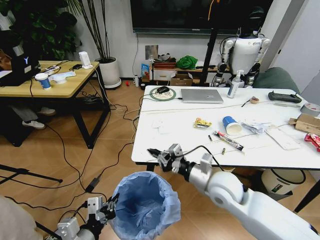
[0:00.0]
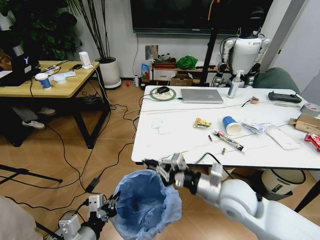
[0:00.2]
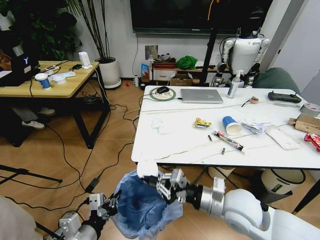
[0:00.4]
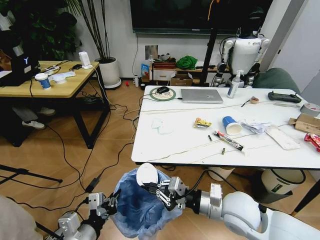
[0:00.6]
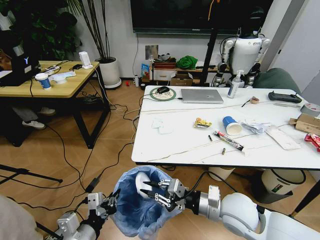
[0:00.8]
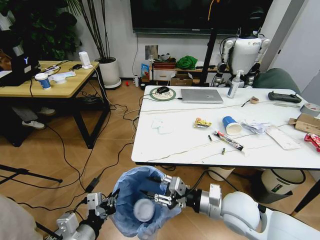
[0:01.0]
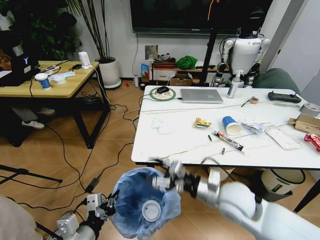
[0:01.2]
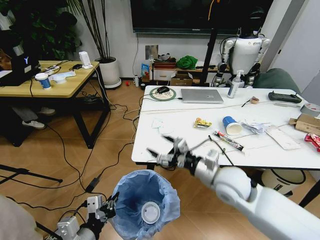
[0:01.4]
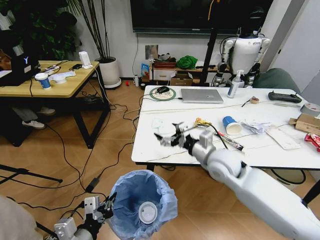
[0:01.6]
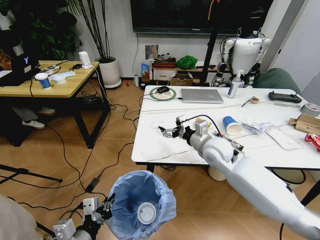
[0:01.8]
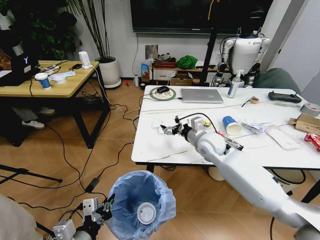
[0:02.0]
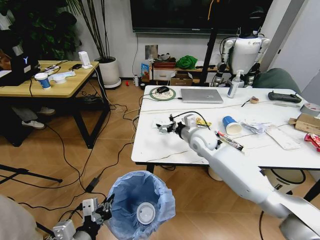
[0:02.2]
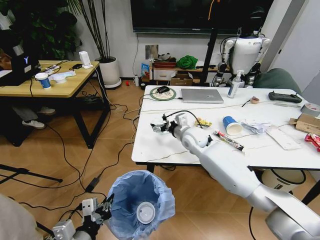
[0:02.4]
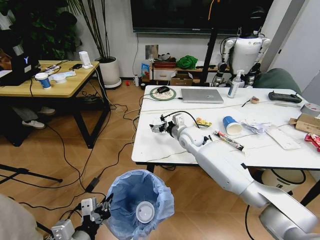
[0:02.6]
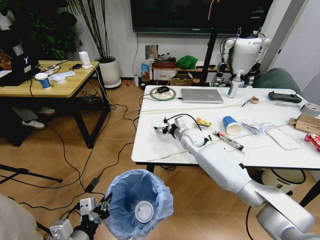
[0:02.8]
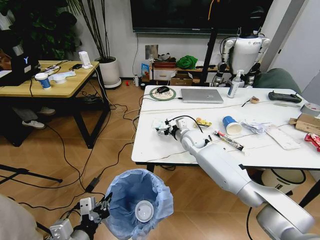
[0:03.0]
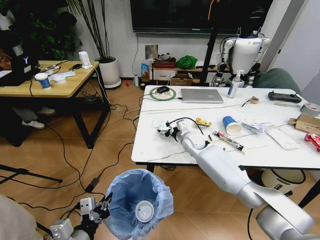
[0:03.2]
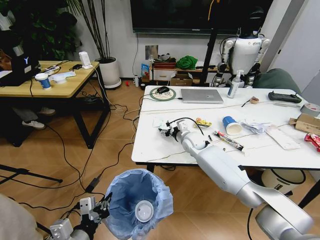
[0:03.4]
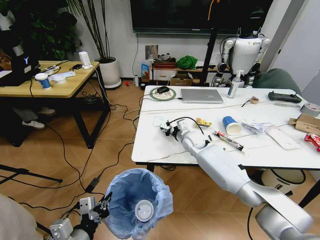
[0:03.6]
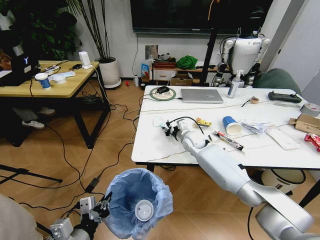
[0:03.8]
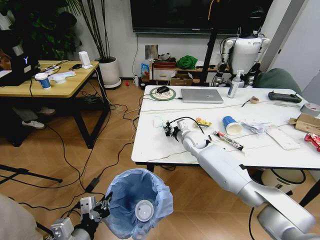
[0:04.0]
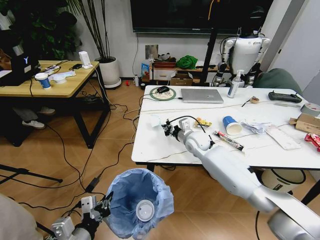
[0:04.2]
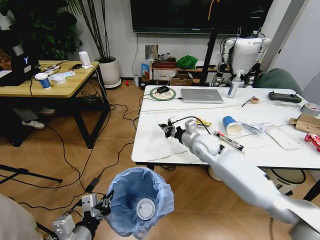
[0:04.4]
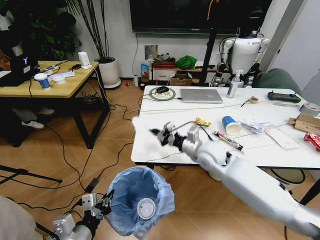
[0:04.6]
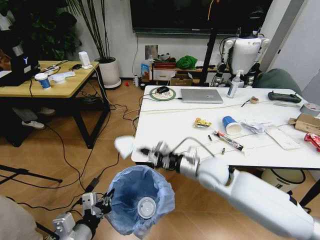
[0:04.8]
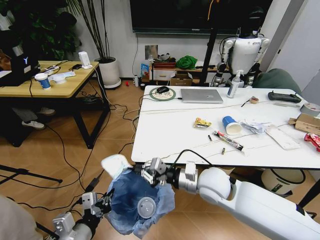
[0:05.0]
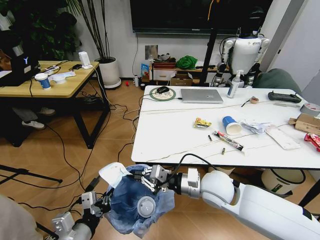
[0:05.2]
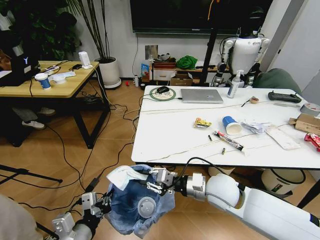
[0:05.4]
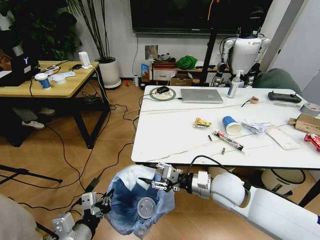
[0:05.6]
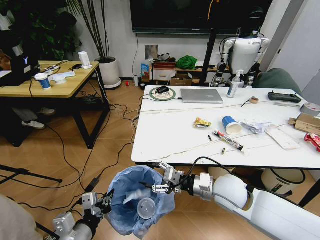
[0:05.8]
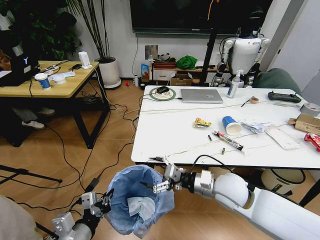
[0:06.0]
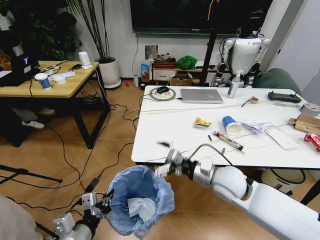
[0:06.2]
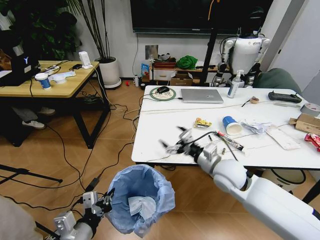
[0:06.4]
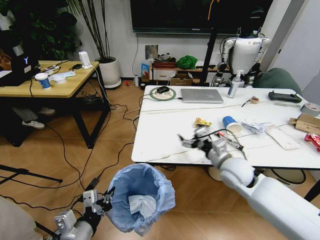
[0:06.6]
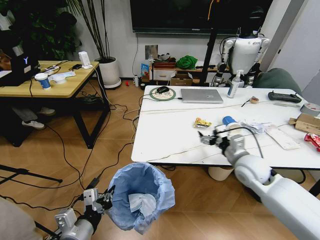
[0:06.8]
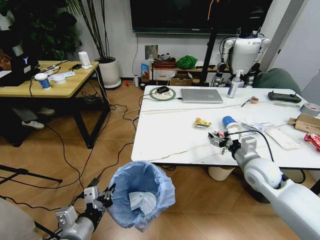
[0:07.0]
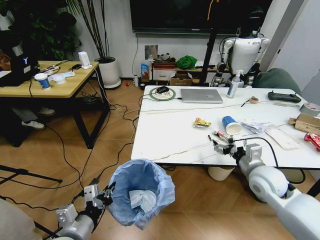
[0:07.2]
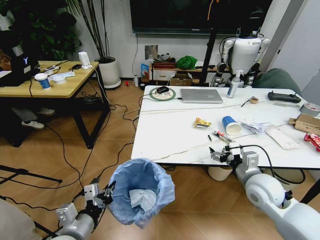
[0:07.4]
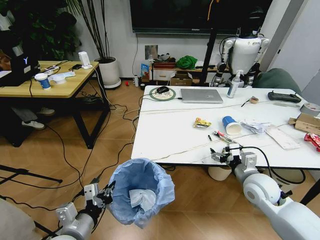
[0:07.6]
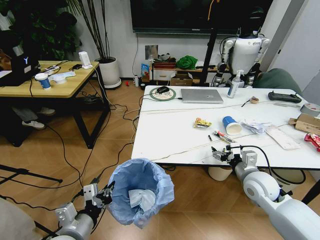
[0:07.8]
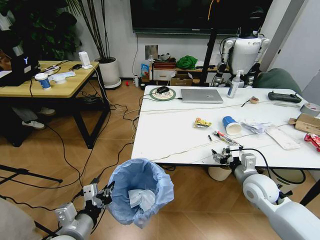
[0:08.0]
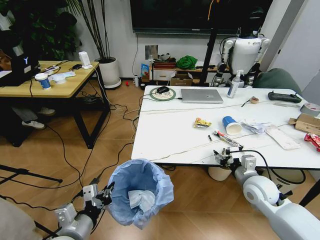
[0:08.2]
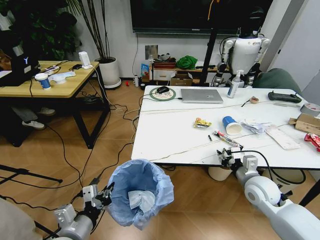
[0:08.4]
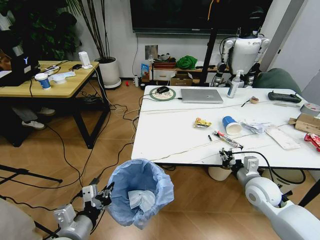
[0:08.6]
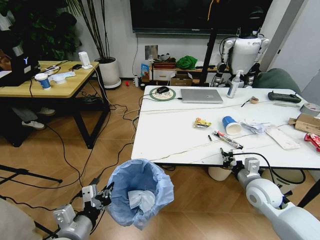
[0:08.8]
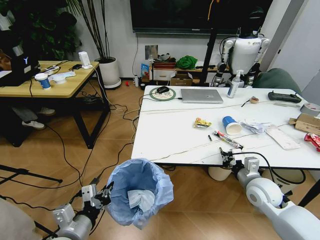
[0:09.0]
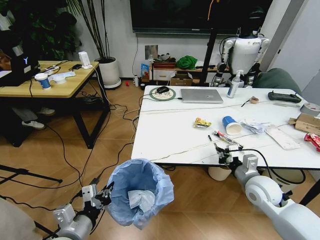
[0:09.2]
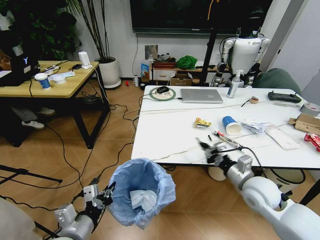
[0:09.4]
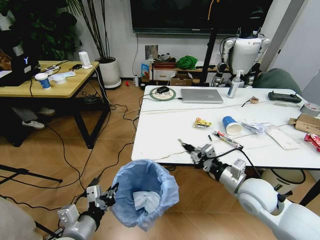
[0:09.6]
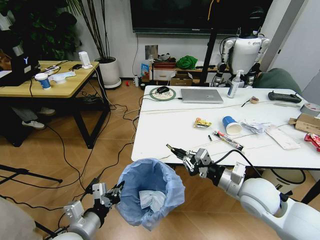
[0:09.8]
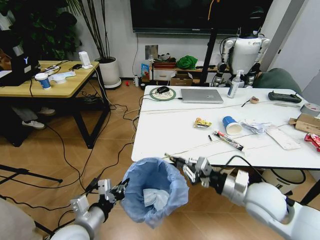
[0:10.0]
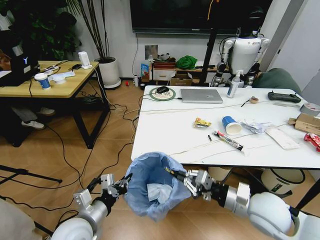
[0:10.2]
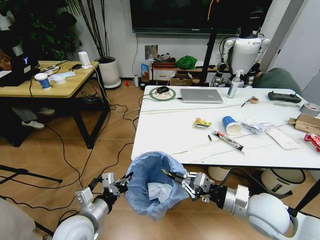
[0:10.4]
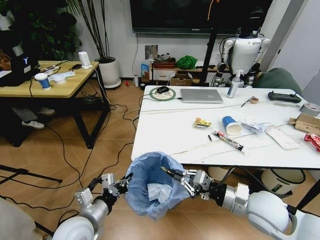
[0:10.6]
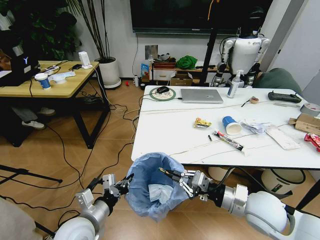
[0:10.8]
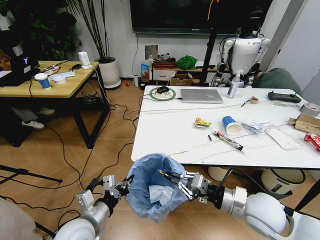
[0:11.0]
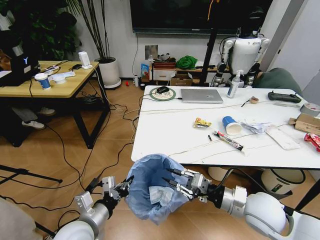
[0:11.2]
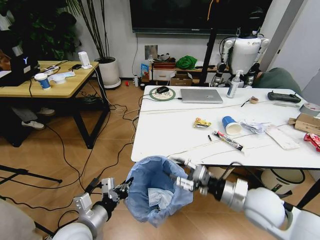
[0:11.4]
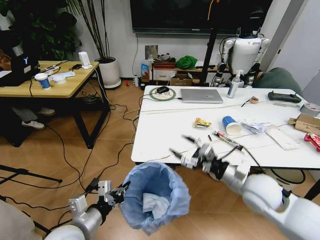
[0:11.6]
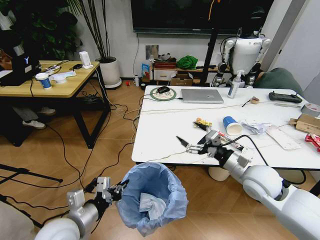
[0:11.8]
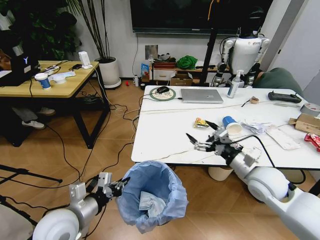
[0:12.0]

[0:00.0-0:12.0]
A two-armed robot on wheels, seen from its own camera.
Task of the whole recording: Pick up the trash bin and place the trash from the table into it.
0:00.0 to 0:01.6: The right gripper travels forward by about 5 cm, and opens its fingers.
0:01.6 to 0:03.0: The right gripper shifts some 20 cm forward and downward.
0:03.0 to 0:04.4: The right gripper ends up some 5 cm from where it was, and closes.
0:04.4 to 0:06.0: The right gripper moves backward, some 20 cm, and opens its fingers.
0:06.0 to 0:07.6: The right gripper is displaced to the right by some 10 cm.
0:07.6 to 0:09.0: The right gripper closes.
0:09.0 to 0:10.4: The left gripper moves forward, about 5 cm, while the right gripper travels backward, to the left and upward by some 10 cm.
0:10.4 to 0:12.0: The right gripper travels forward by approximately 10 cm, and opens its fingers.

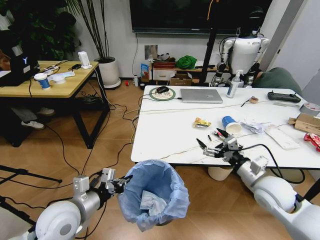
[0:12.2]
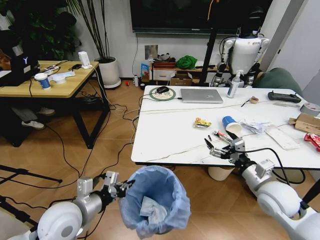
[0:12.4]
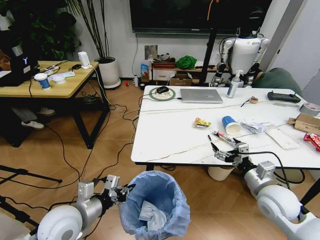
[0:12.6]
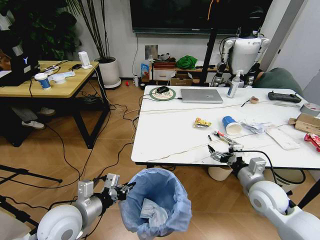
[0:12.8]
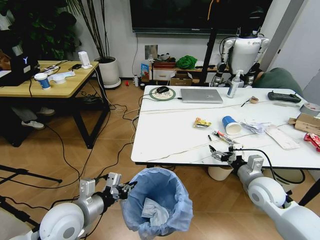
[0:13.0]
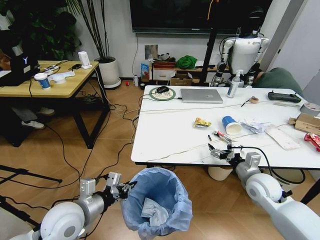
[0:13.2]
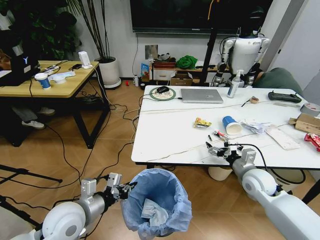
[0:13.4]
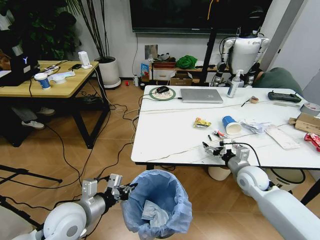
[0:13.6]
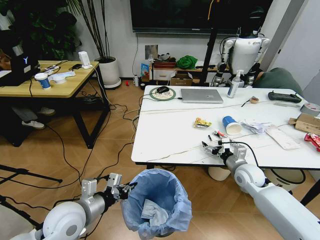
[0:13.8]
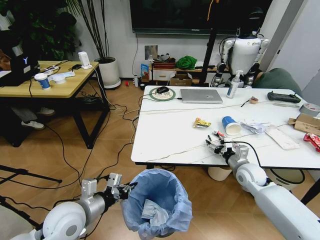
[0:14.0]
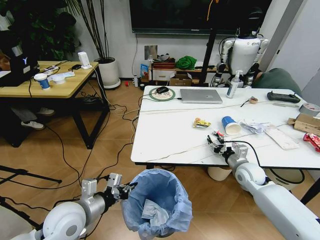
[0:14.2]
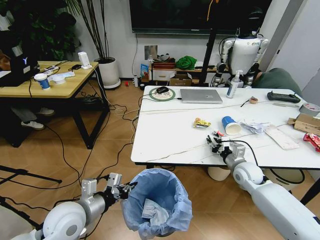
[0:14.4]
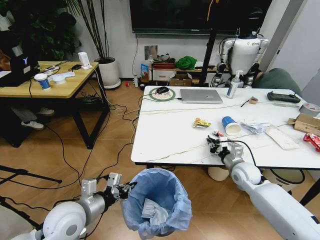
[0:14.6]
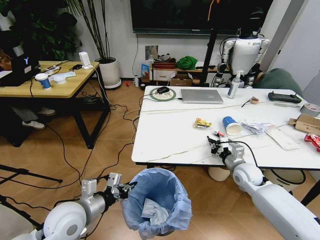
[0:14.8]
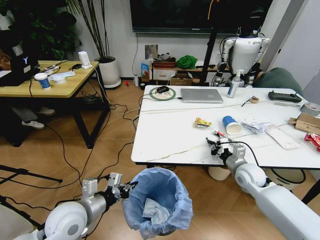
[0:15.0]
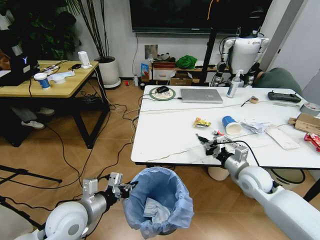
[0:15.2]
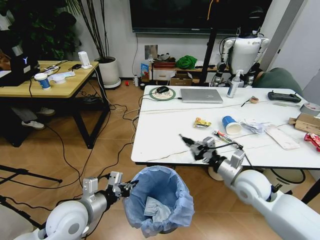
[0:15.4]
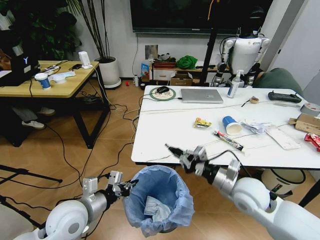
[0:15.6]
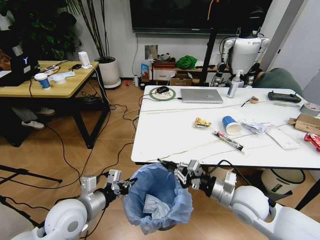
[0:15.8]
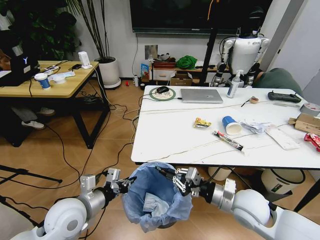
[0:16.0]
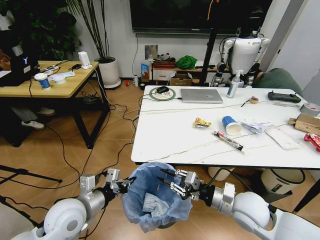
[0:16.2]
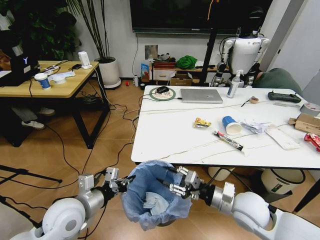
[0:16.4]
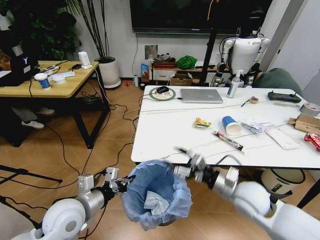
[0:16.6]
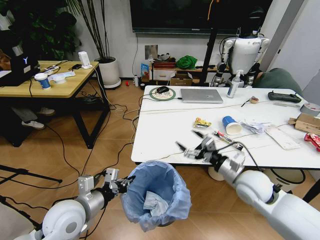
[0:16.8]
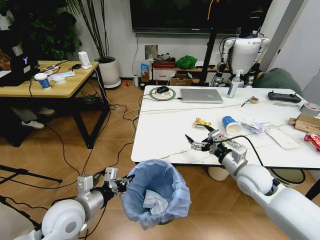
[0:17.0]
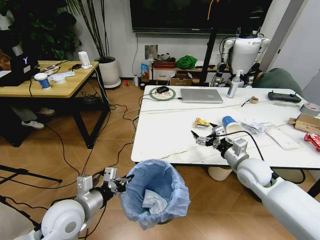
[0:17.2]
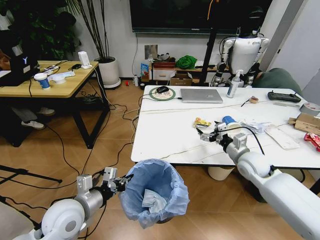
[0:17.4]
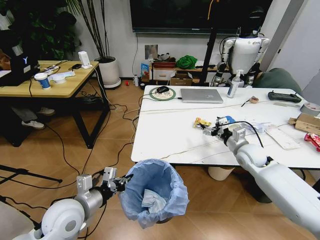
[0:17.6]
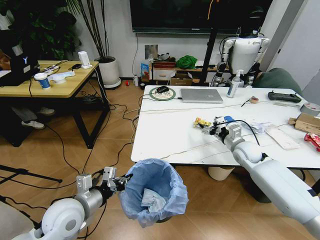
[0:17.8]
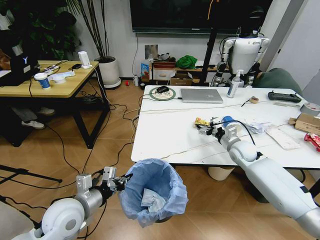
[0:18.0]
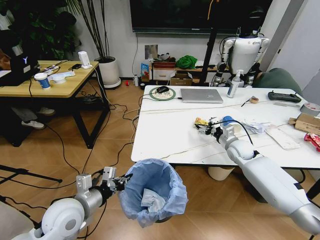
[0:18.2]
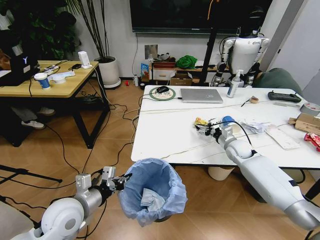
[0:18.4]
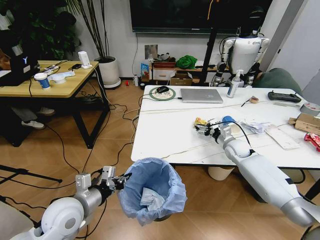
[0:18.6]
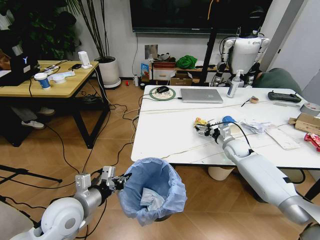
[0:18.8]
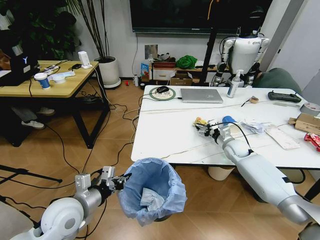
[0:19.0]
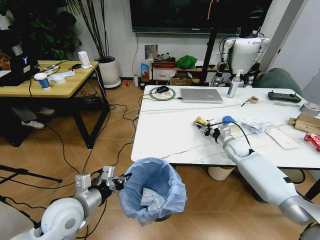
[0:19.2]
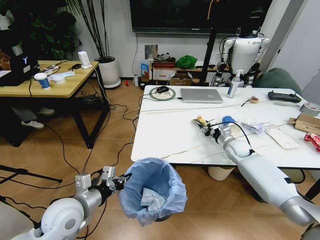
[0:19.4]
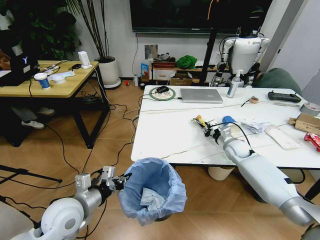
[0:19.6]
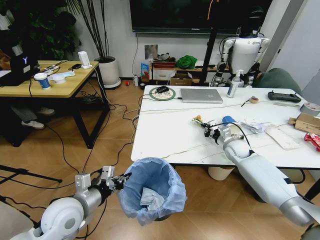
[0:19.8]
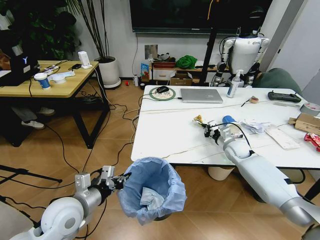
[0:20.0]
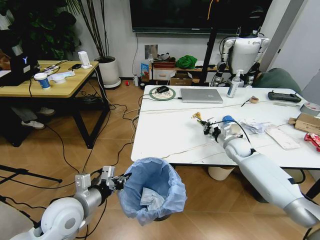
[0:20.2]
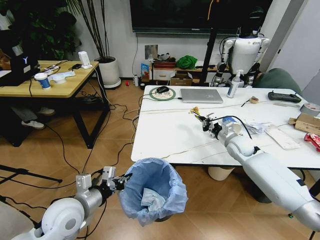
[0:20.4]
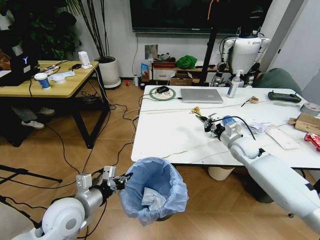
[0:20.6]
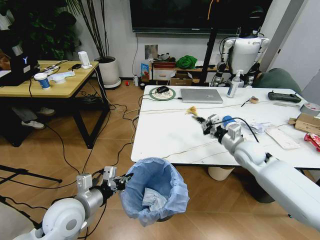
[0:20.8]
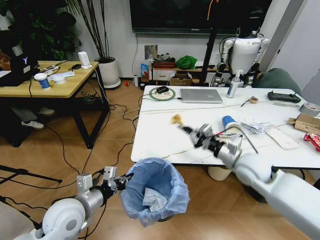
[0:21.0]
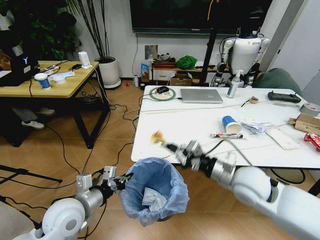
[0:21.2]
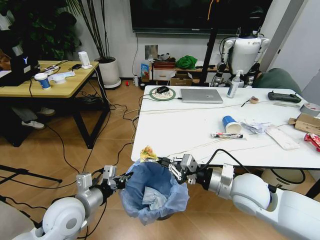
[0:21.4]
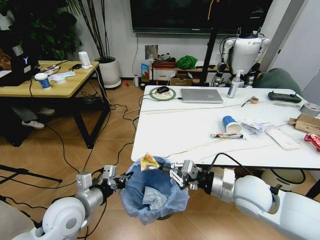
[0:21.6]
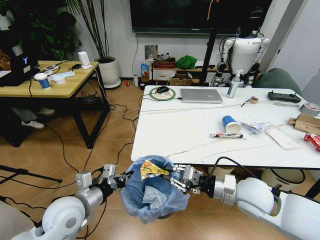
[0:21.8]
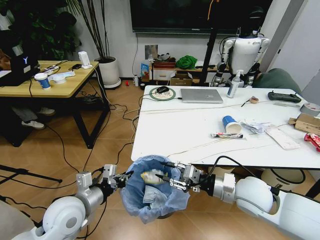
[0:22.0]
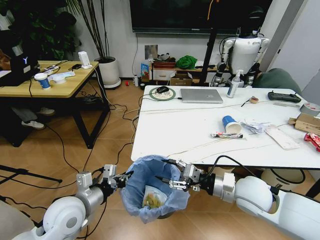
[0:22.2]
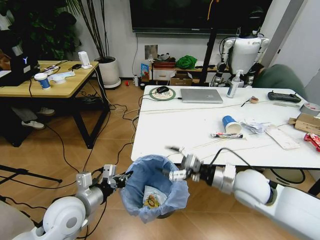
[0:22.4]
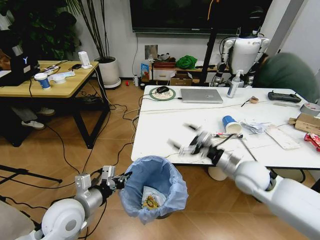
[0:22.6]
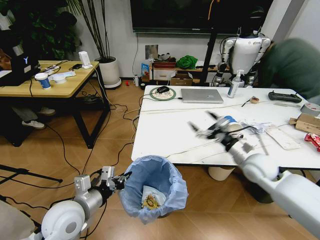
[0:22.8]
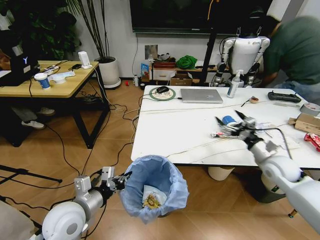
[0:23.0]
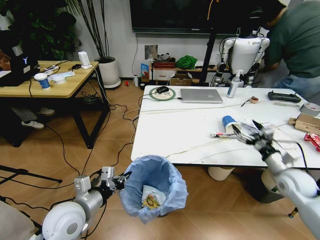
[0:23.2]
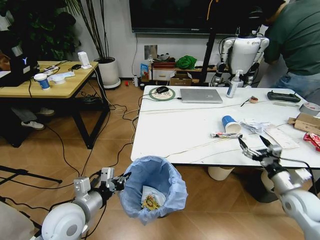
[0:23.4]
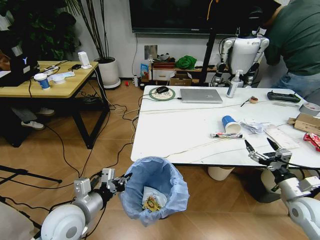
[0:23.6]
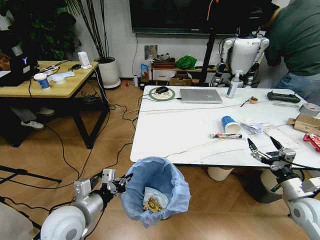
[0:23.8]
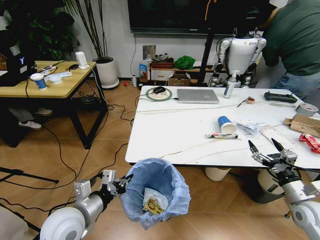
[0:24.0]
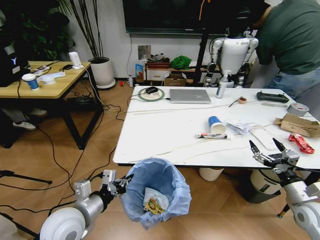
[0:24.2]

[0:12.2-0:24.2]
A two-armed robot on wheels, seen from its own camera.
Task of the whole recording: Pick up the trash bin and place the trash from the table into it.
0:12.2 to 0:13.8: The right gripper travels forward and downward by some 15 cm.
0:13.8 to 0:15.2: The right gripper heads upward, covering approximately 5 cm, and closes up.
0:15.2 to 0:16.6: The right gripper shifts some 10 cm backward and to the left, and opens its fingers.
0:16.6 to 0:18.2: The right gripper travels forward by approximately 20 cm.
0:18.2 to 0:19.8: The right gripper closes up.
0:19.8 to 0:21.2: The right gripper heads backward, upward and to the left, covering roughly 25 cm.
0:21.2 to 0:22.6: The right gripper ends up some 5 cm from where it was, and opens.
0:22.6 to 0:24.2: The right gripper heads to the right and backward, covering some 20 cm.
